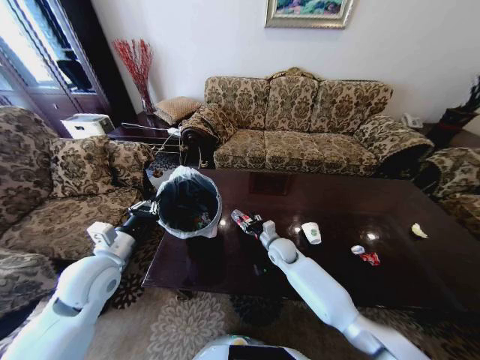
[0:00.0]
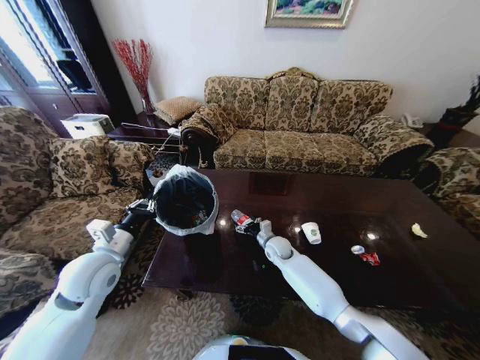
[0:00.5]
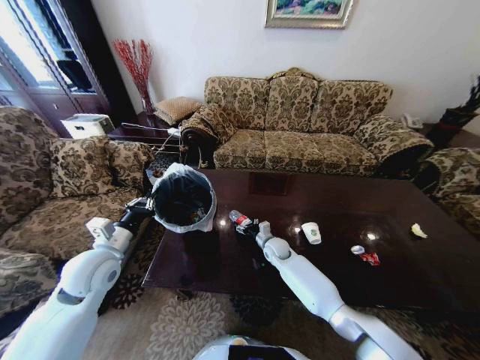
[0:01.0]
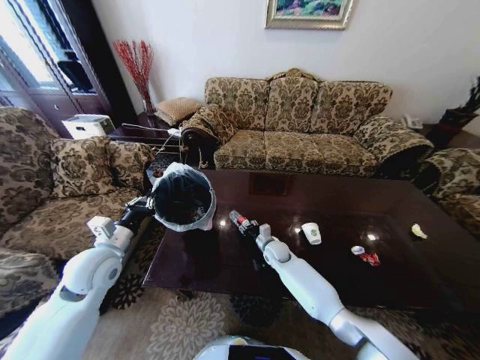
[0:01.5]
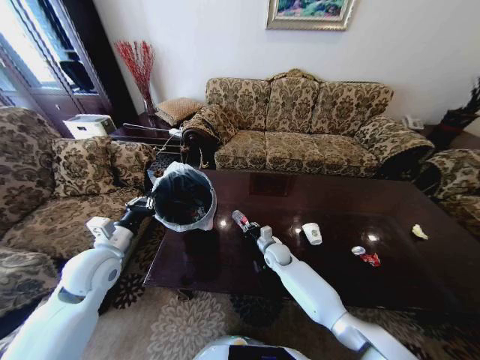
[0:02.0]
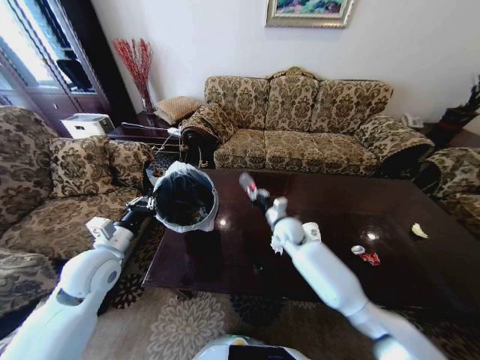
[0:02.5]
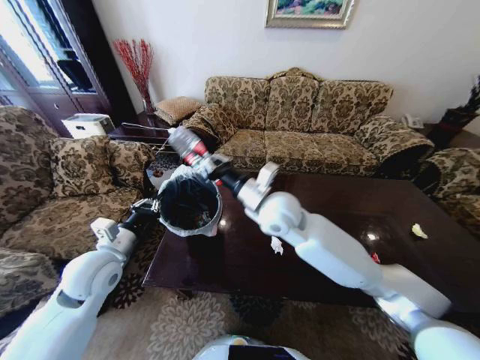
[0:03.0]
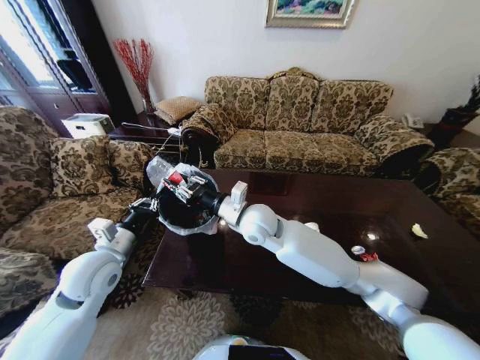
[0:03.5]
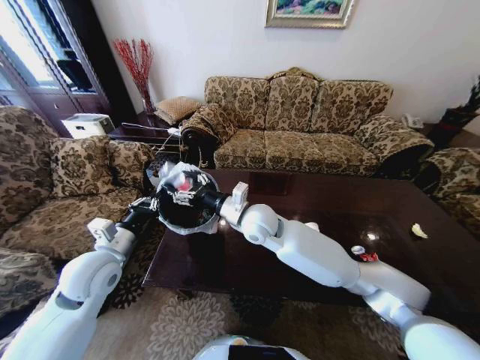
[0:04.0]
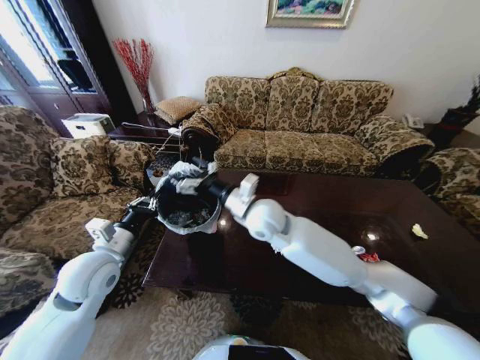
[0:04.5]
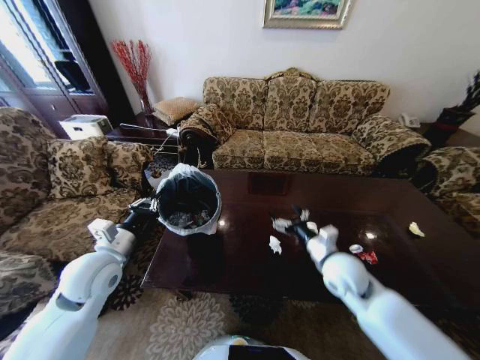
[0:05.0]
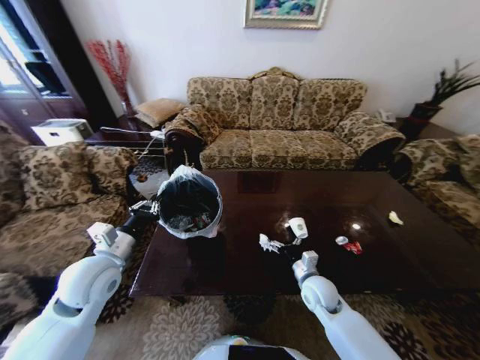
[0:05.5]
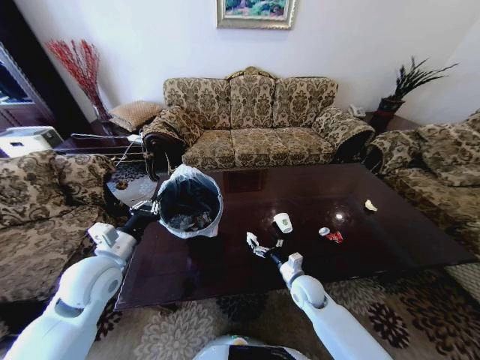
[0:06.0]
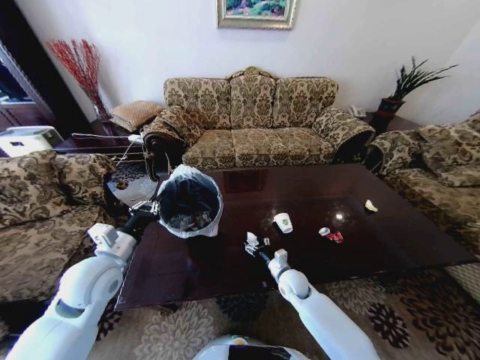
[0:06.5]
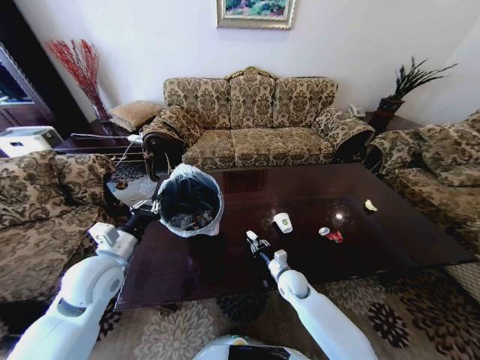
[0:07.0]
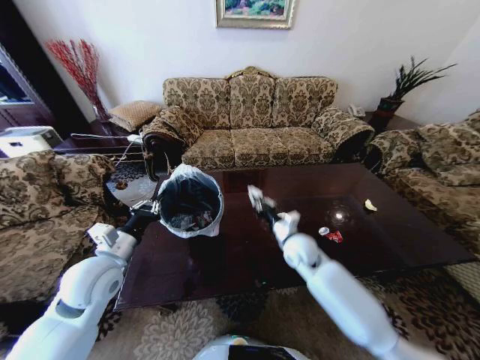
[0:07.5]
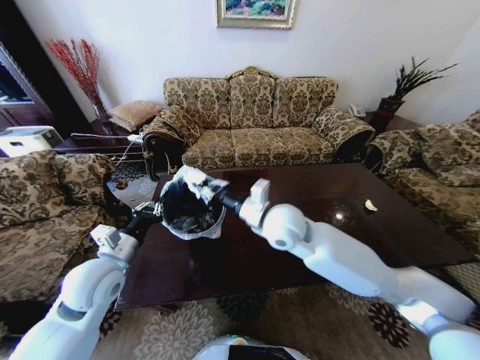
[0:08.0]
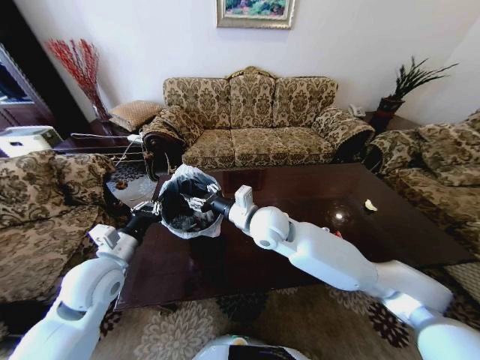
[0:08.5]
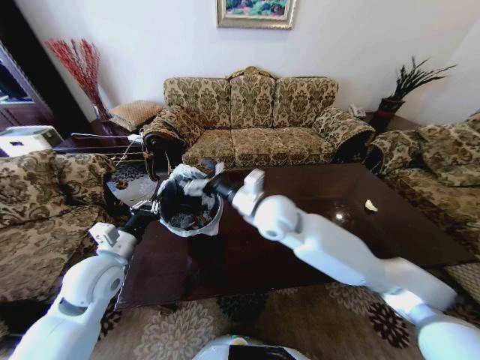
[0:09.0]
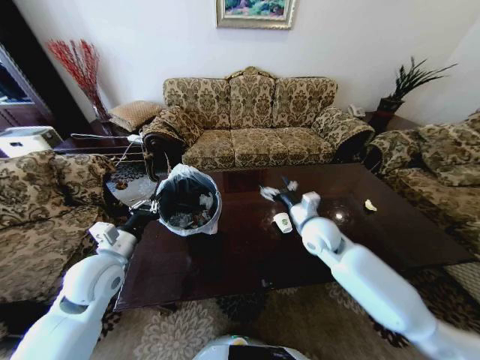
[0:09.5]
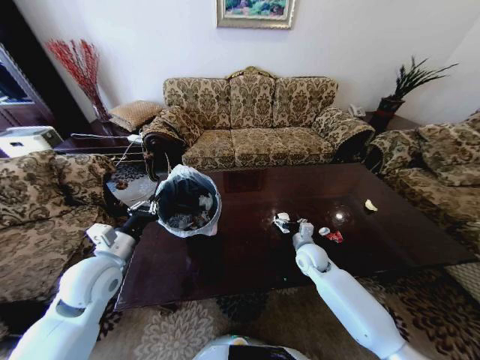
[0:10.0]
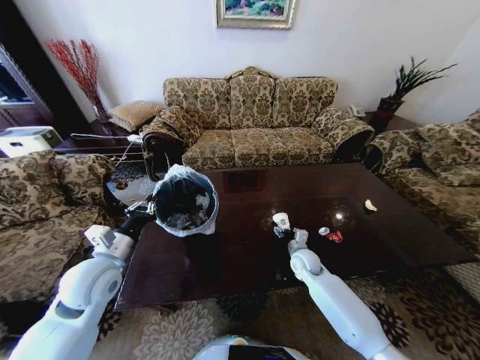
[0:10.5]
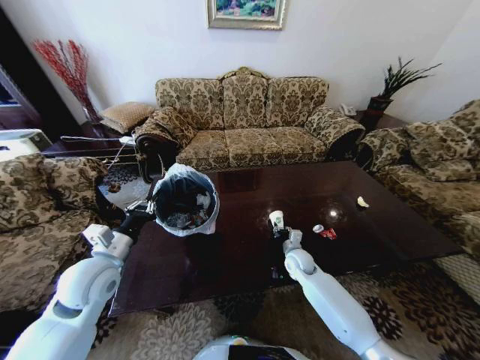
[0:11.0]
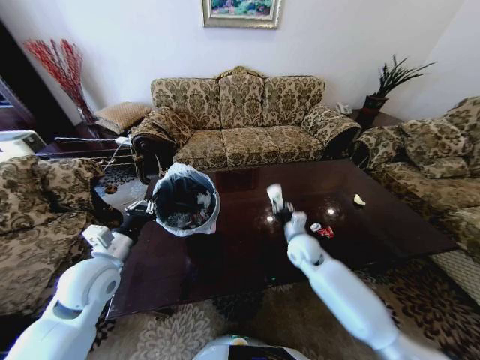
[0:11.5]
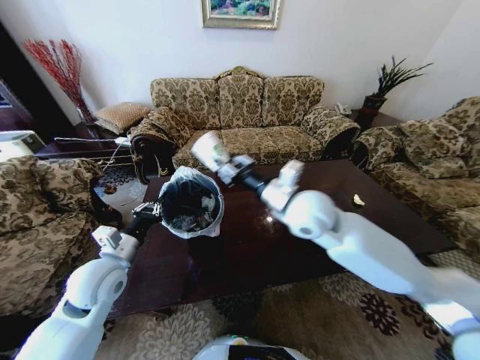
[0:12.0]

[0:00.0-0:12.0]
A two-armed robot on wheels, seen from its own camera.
Task of the whole recording: Move to the front of the table and place the trash on the table into the trash bin.
0:00.0 to 0:02.0: The right gripper ends up approximately 5 cm from where it was, and opens, then closes once more.
0:02.0 to 0:04.0: The right gripper shifts roughly 25 cm upward, and opens up.
0:04.0 to 0:06.0: The right gripper moves downward and to the right, some 30 cm.
0:06.0 to 0:08.0: The right gripper moves upward and to the left, some 30 cm, and closes its fingers.
0:08.0 to 0:10.0: The right gripper heads downward and to the right, covering about 30 cm, and opens.
0:10.0 to 0:12.0: The right gripper is displaced upward and to the left by approximately 30 cm, and closes its fingers.

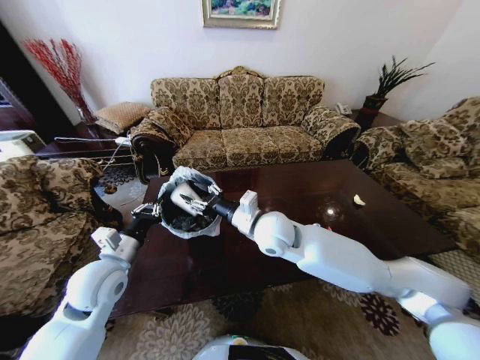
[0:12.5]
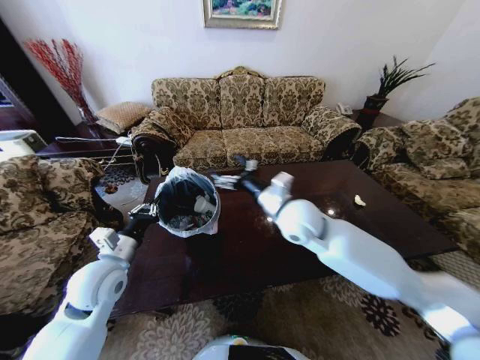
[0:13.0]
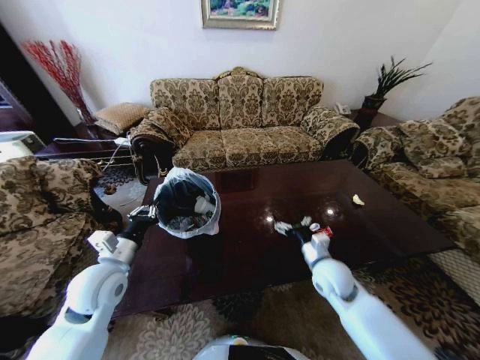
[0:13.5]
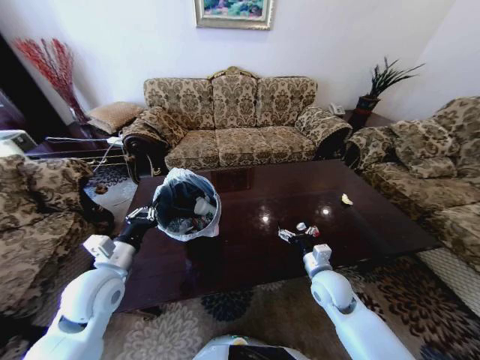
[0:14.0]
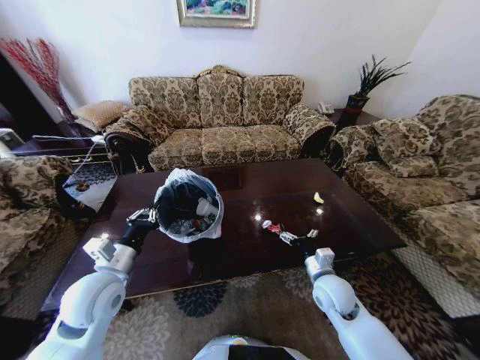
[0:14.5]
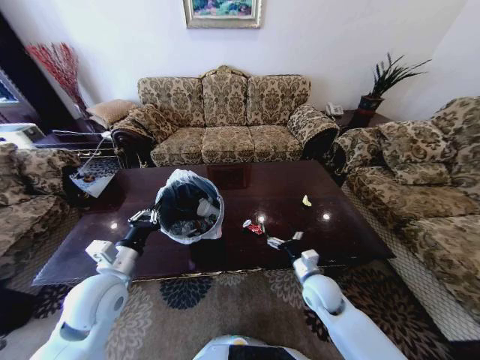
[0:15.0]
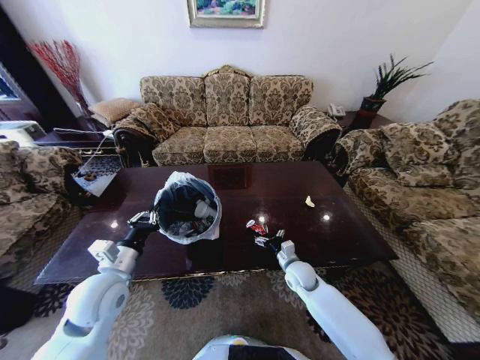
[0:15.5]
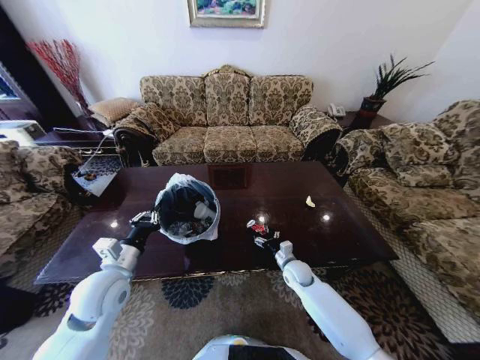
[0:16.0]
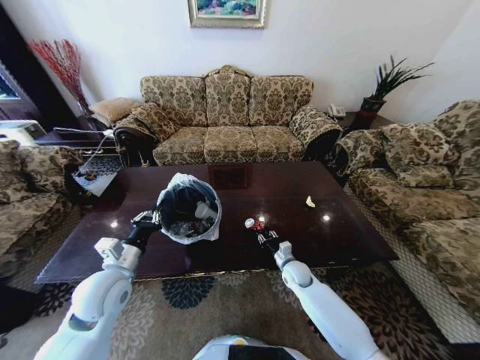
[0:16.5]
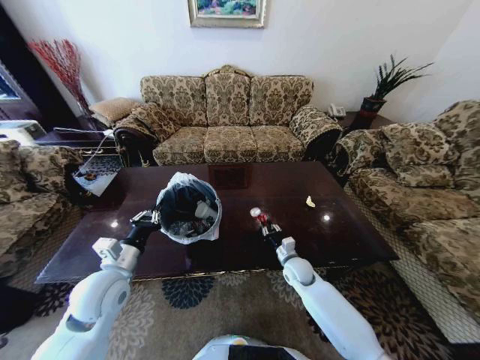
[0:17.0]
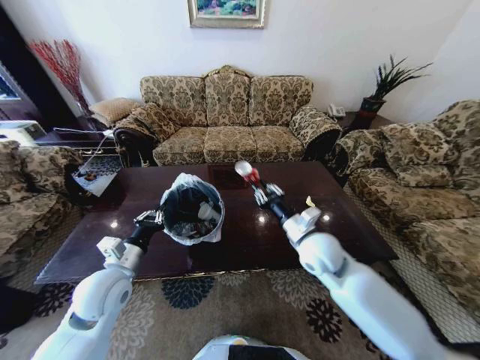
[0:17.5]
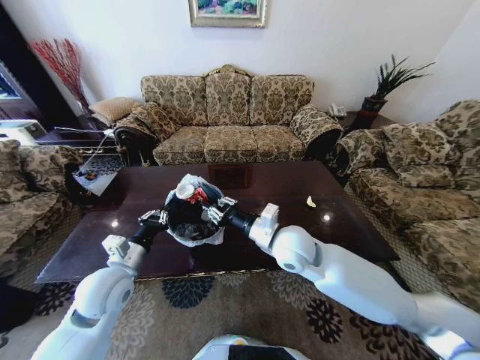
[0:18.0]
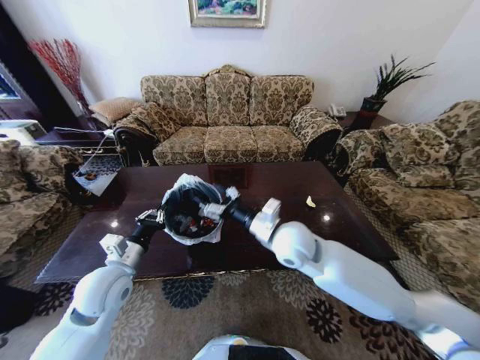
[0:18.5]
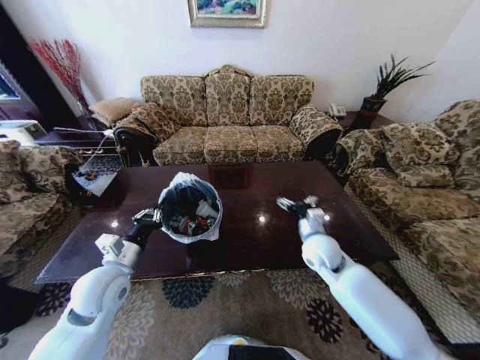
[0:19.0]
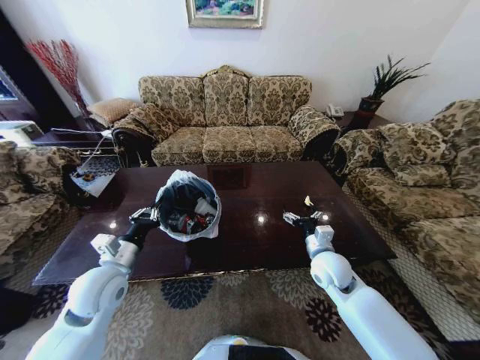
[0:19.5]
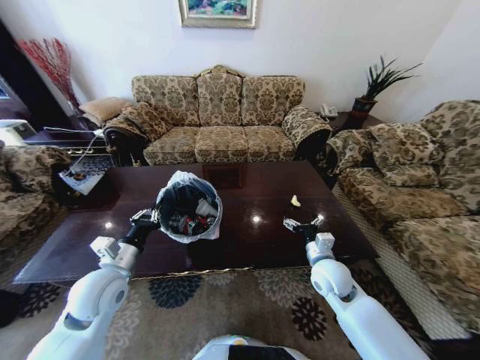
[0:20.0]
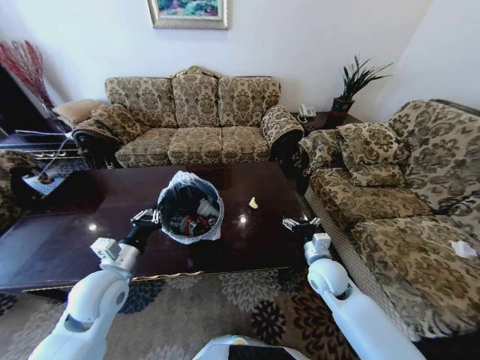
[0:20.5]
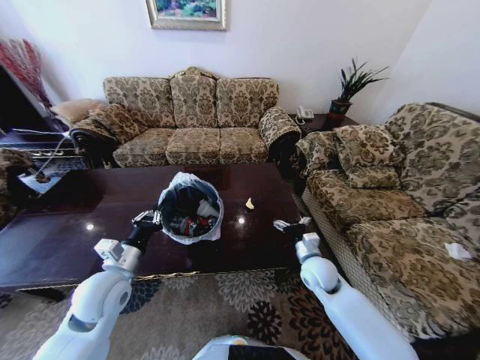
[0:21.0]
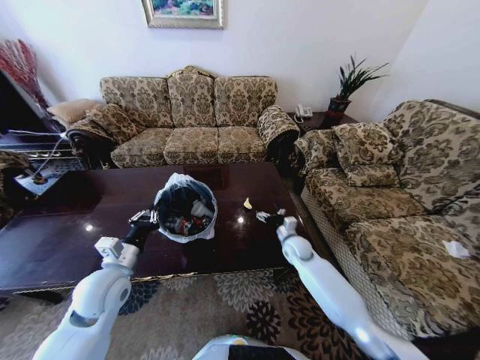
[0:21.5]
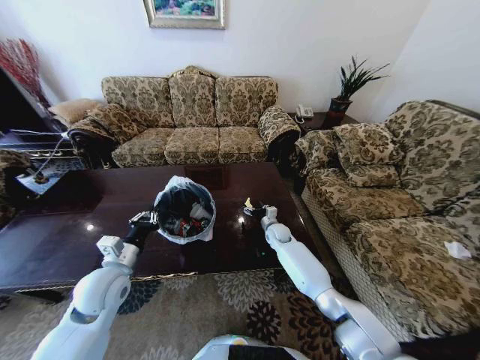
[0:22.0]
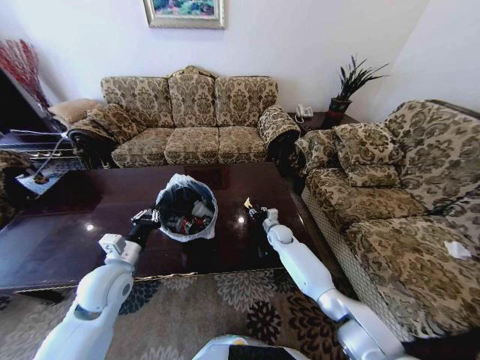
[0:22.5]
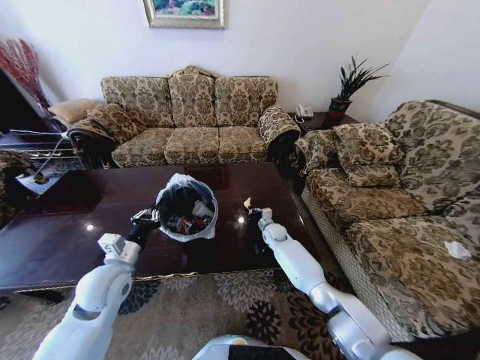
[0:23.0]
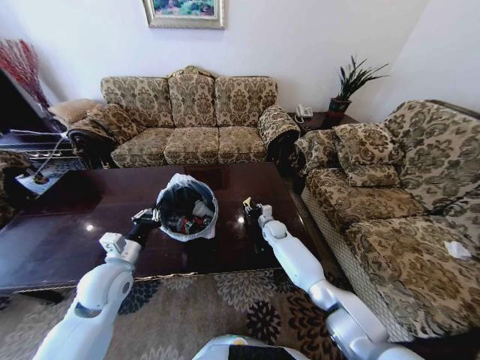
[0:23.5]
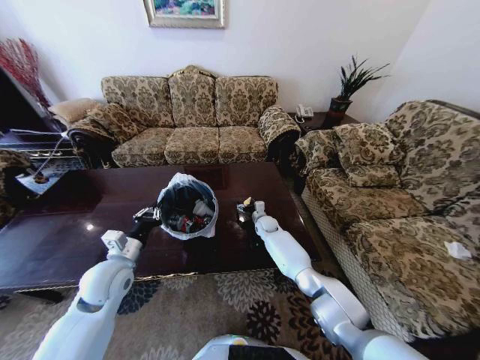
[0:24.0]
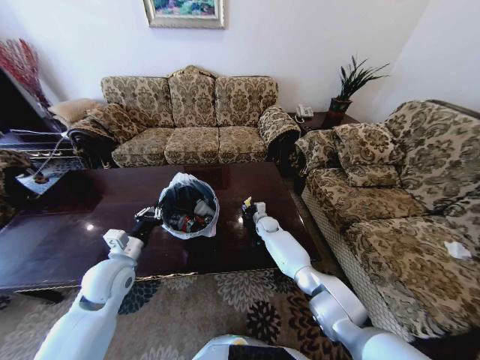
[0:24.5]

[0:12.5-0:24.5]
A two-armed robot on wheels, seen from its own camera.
Task of the whole recording: Move to the front of the table and place the trash on the table into the trash bin.
0:12.5 to 0:14.5: The right gripper is displaced to the right and downward by some 25 cm, and opens up.
0:14.5 to 0:16.5: The right gripper goes roughly 15 cm downward and forward, and closes its fingers.
0:16.5 to 0:18.5: The right gripper goes roughly 30 cm upward.
0:18.5 to 0:20.5: The right gripper goes approximately 20 cm downward and to the right.
0:20.5 to 0:22.5: The right gripper moves forward, downward and to the left, approximately 25 cm, and closes its fingers.
0:22.5 to 0:24.5: The right gripper moves forward, about 5 cm, and closes, then opens again.

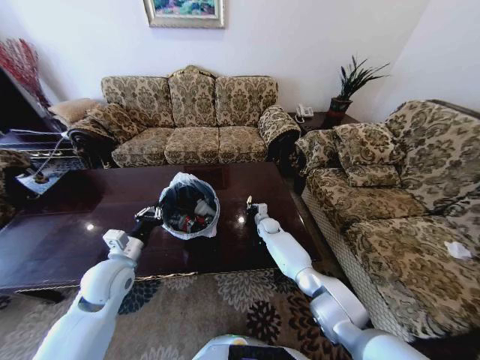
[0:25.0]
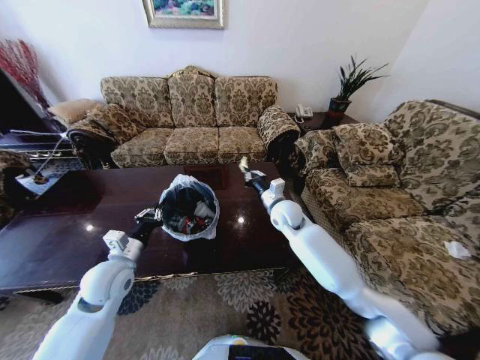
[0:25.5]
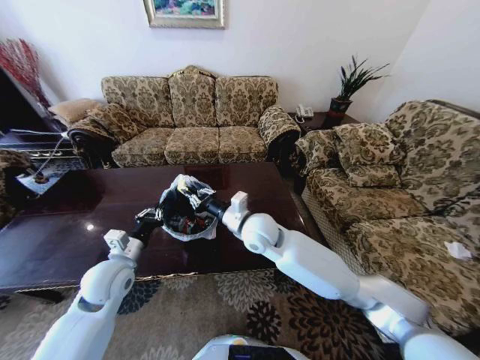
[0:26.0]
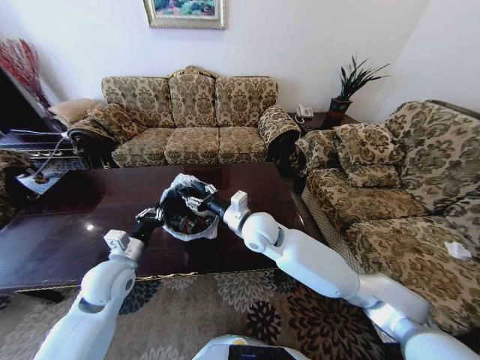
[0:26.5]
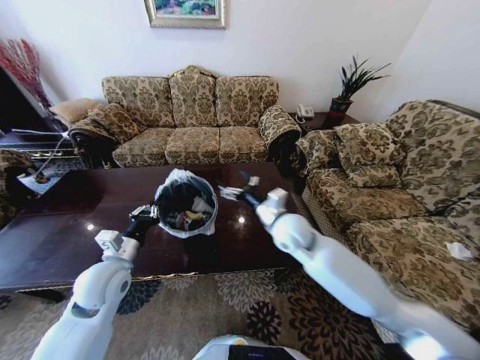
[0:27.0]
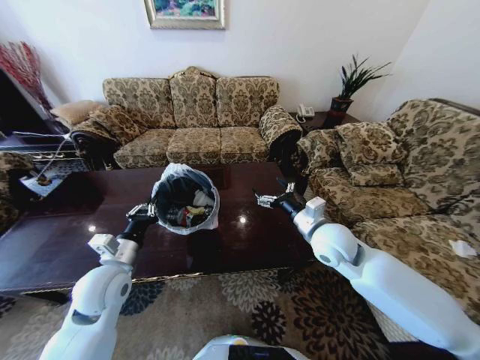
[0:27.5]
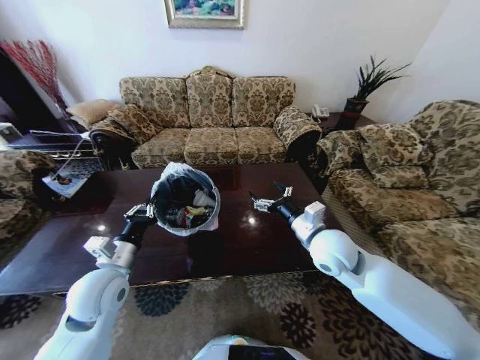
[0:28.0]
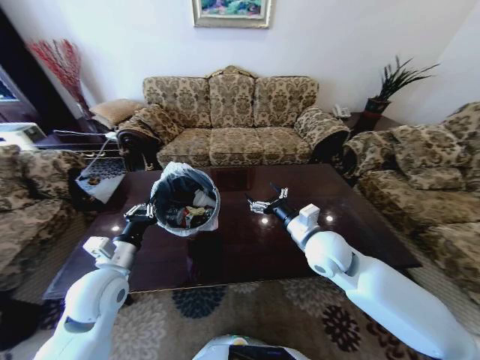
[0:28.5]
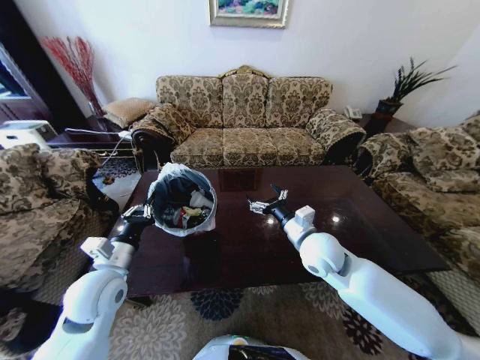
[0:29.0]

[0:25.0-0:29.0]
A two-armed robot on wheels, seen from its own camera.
Task of the whole recording: Move to the front of the table and place the trash on the table into the trash bin.
0:25.0 to 0:27.0: The right gripper goes some 30 cm upward and backward, and opens up.
0:27.0 to 0:29.0: The right gripper heads to the right, covering about 5 cm.
